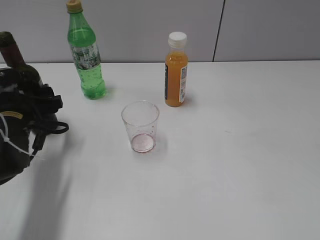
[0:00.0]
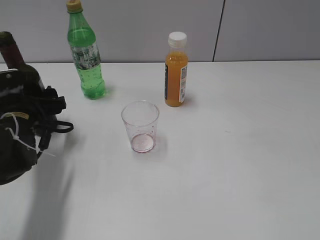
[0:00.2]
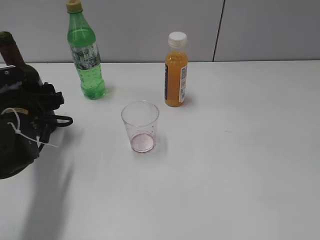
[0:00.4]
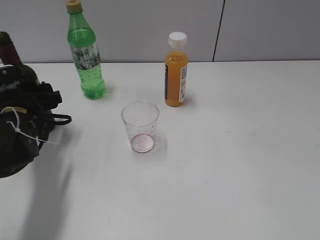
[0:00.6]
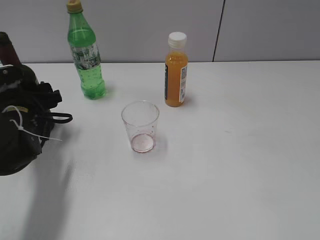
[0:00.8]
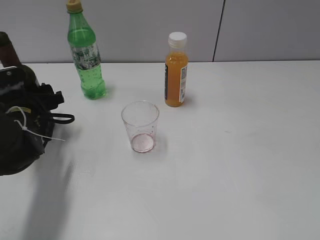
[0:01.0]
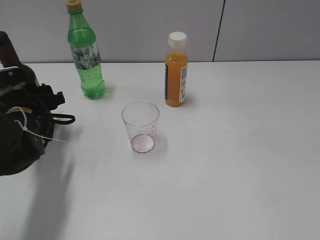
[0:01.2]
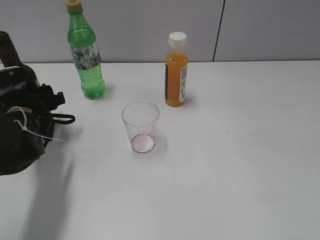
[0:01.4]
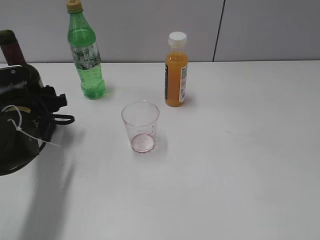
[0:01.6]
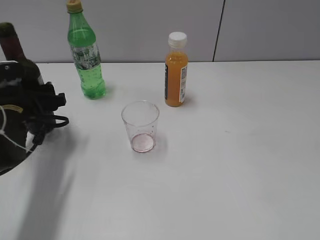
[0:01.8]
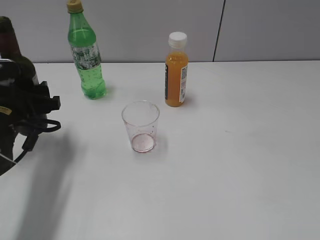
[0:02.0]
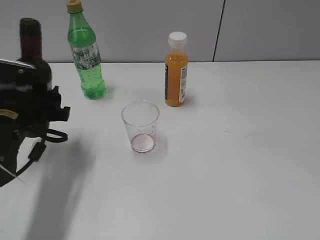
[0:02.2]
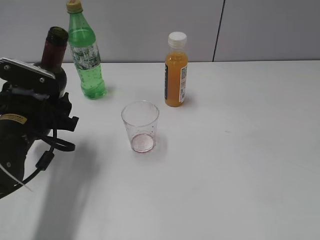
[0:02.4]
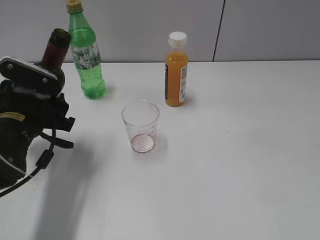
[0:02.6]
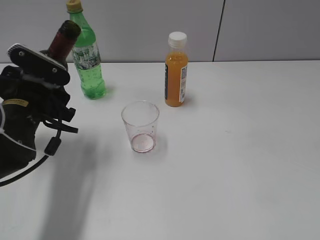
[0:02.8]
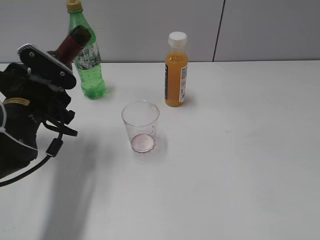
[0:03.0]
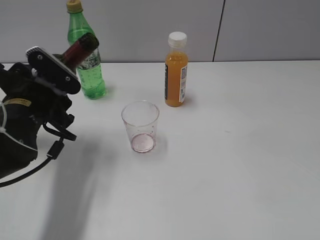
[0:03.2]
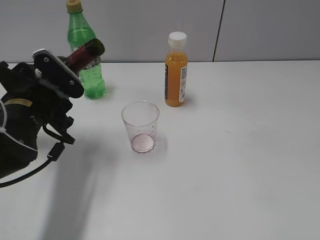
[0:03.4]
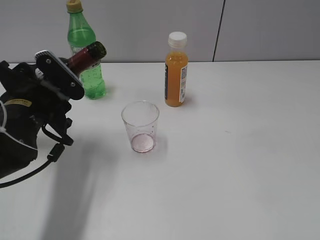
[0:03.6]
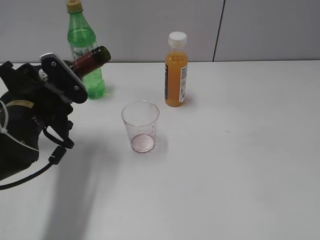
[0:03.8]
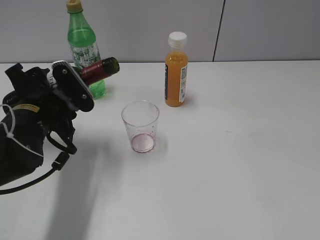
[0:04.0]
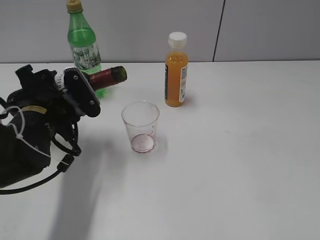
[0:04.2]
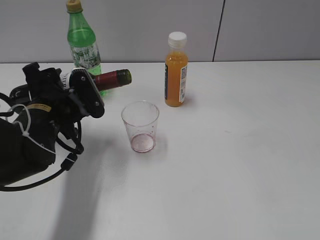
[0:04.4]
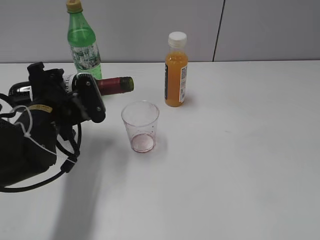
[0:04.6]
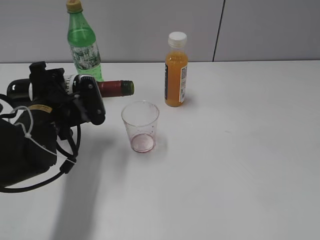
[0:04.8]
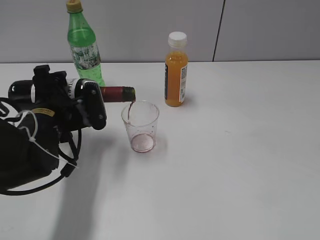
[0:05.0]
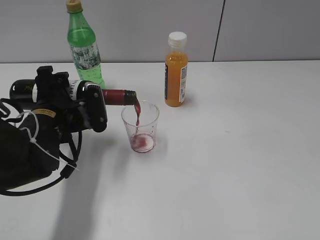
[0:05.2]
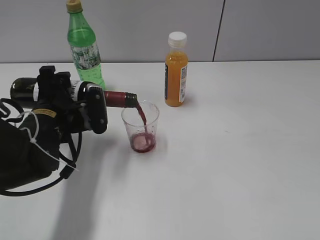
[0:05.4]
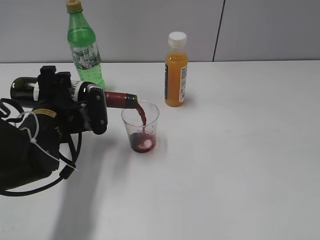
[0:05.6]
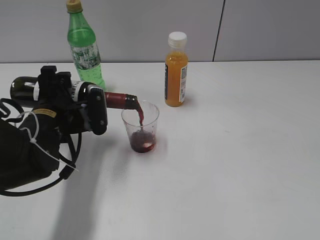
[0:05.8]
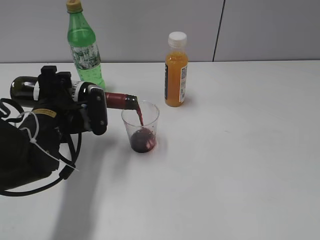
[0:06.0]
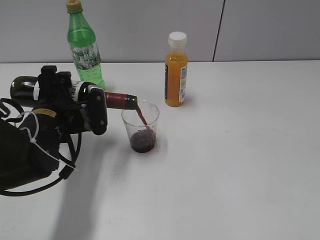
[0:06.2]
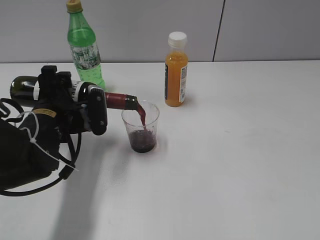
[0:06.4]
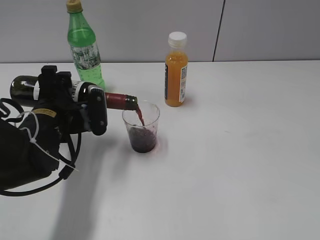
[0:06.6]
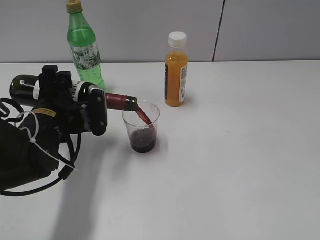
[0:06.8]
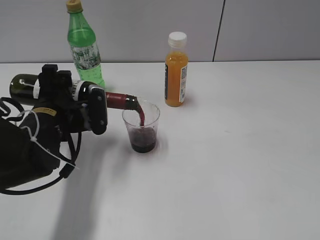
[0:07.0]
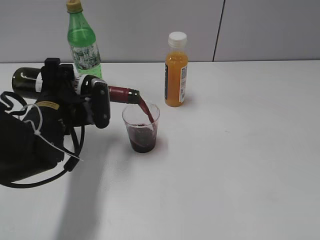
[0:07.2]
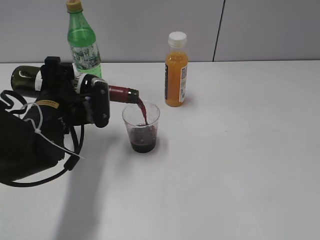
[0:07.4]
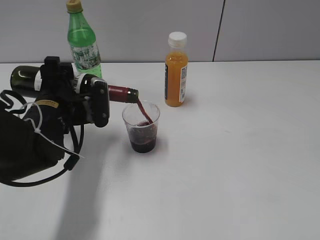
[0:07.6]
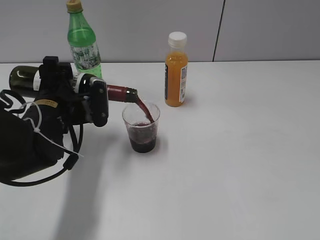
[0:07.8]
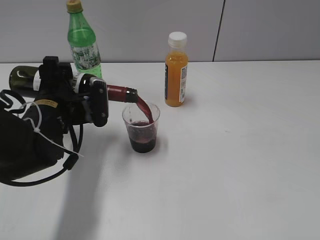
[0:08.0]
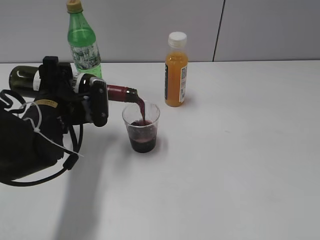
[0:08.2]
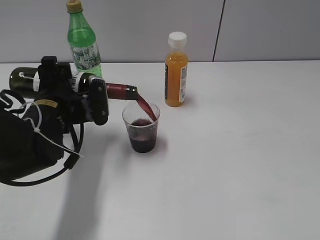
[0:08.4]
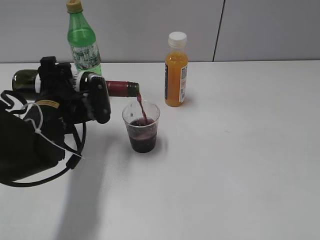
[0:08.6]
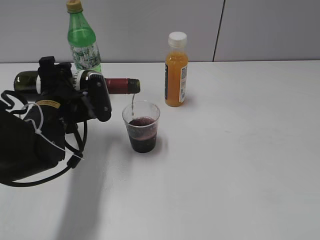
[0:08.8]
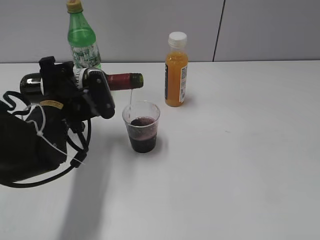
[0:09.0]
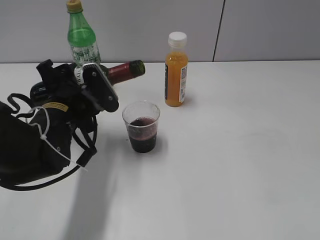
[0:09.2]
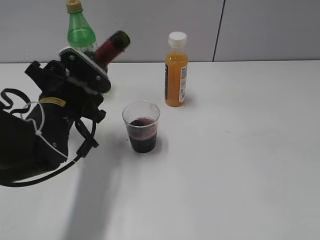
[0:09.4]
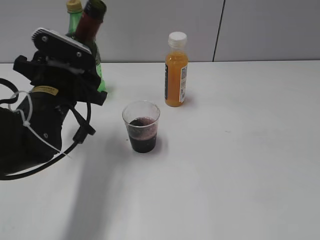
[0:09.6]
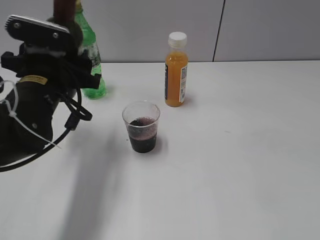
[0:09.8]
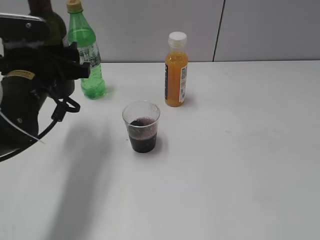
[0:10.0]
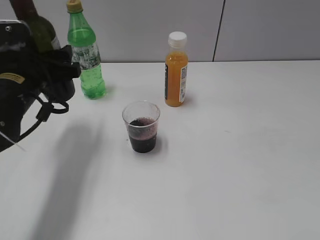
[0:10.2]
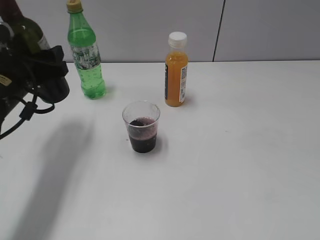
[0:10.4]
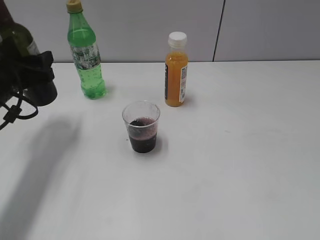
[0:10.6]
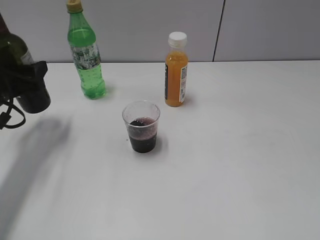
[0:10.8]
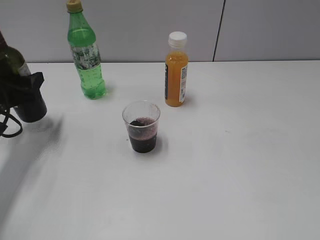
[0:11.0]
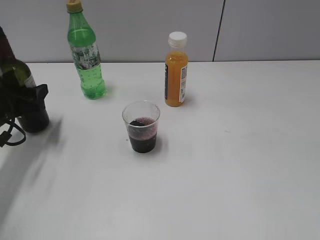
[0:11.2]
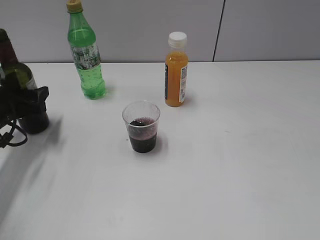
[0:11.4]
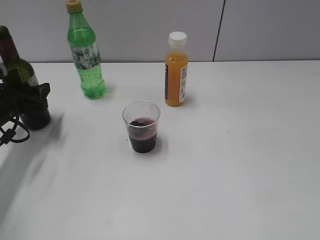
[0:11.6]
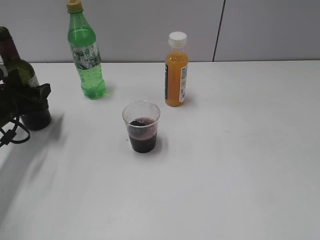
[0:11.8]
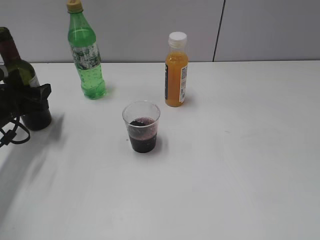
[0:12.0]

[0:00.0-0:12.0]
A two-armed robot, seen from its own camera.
Step, 0:01.6 to 0:09.0: Pour the red wine from bottle to cup with left gripper.
0:00.0 to 0:01.6: The left gripper closes up.
0:01.6 to 0:03.0: The left gripper is displaced upward by roughly 5 cm.
0:04.4 to 0:06.0: The grippers stay close to where they were, moving slightly.
0:06.0 to 0:07.6: The two grippers keep their place.
0:07.6 to 0:09.0: The grippers move only a little.
0:09.0 to 0:10.4: The left gripper goes approximately 5 cm to the left.
0:10.4 to 0:12.0: The left gripper shifts about 10 cm downward and to the left.

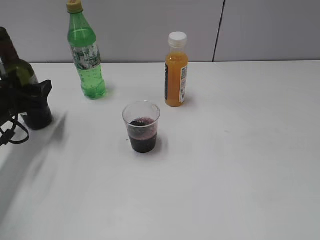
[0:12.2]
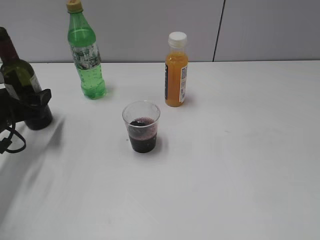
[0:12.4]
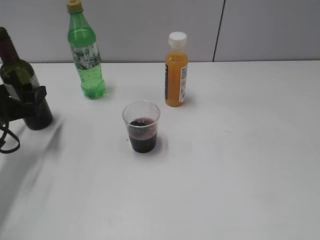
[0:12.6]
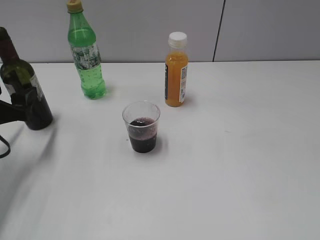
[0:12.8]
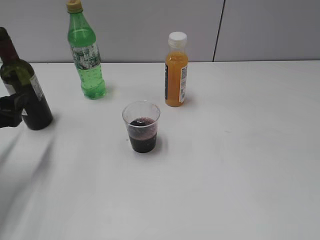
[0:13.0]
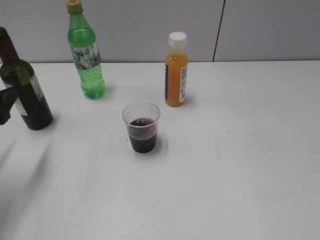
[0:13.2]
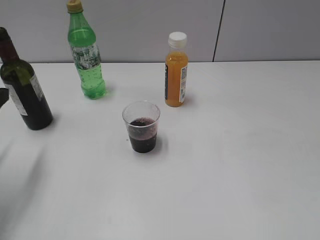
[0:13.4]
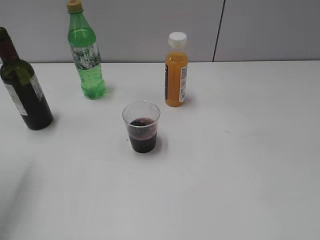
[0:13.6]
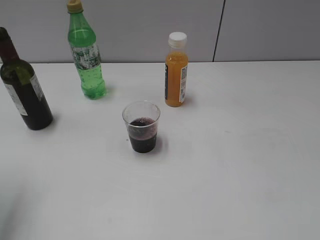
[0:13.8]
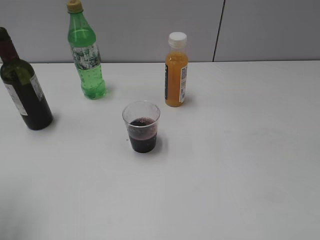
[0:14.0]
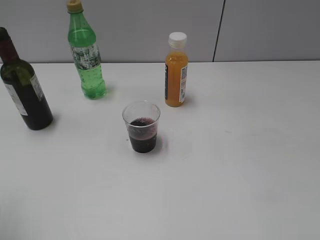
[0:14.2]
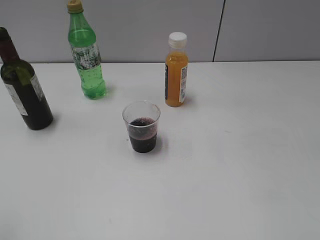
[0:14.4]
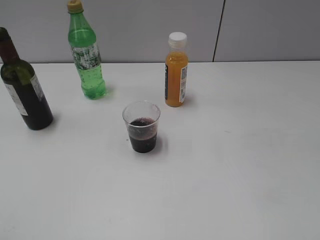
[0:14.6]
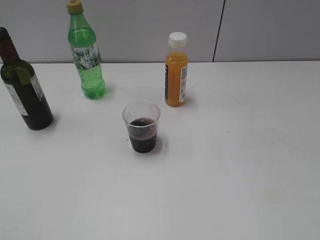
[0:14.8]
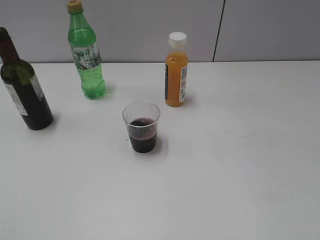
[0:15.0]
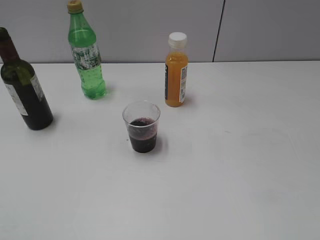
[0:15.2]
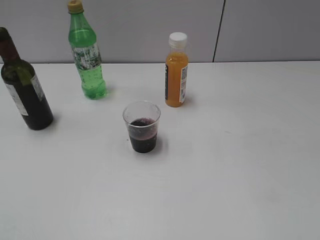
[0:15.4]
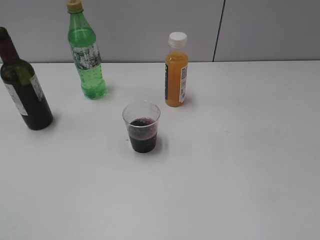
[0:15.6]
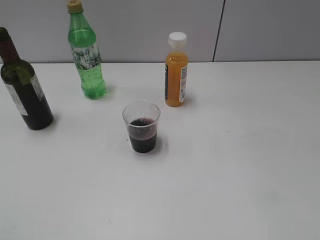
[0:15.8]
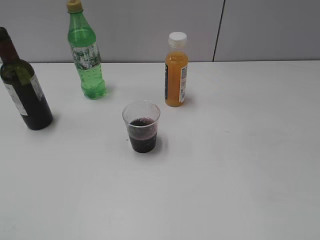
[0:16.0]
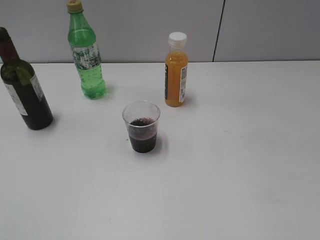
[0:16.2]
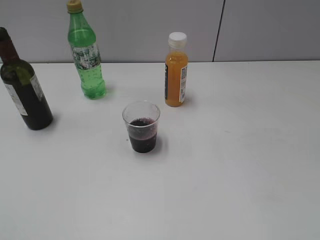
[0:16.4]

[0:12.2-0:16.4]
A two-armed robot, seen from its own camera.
0:12.2 to 0:13.6: The left gripper travels upward and backward by roughly 15 cm.
0:13.6 to 0:15.0: The left gripper goes approximately 20 cm backward.

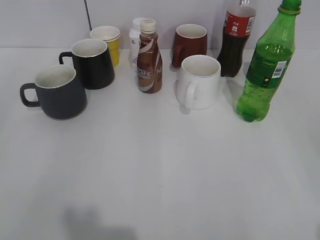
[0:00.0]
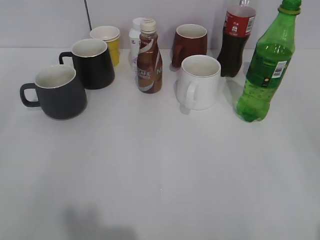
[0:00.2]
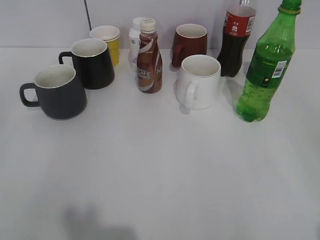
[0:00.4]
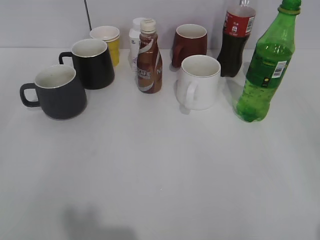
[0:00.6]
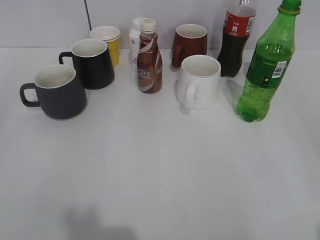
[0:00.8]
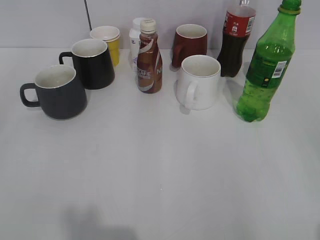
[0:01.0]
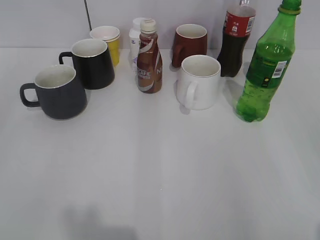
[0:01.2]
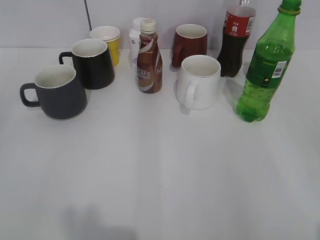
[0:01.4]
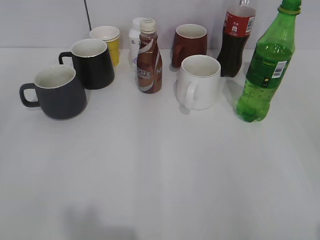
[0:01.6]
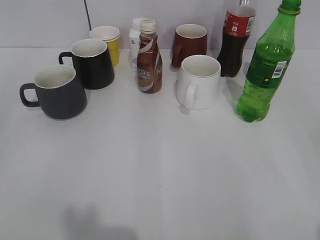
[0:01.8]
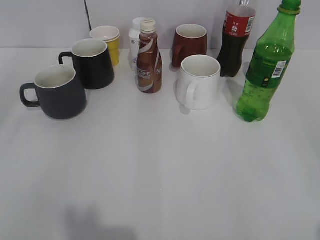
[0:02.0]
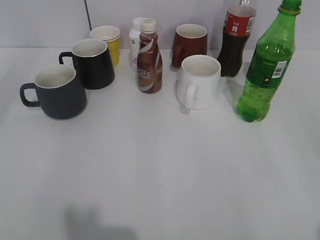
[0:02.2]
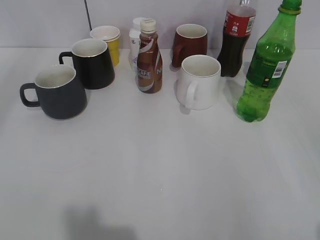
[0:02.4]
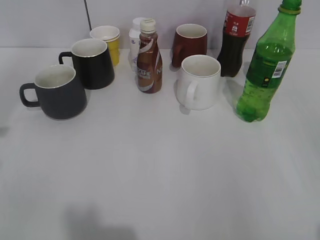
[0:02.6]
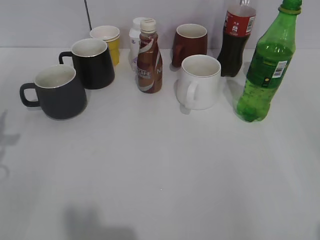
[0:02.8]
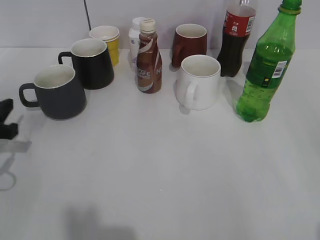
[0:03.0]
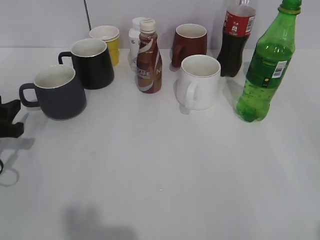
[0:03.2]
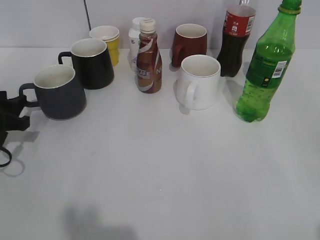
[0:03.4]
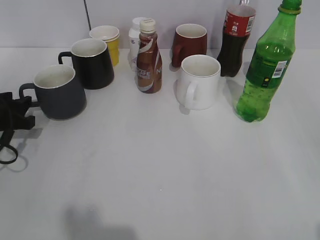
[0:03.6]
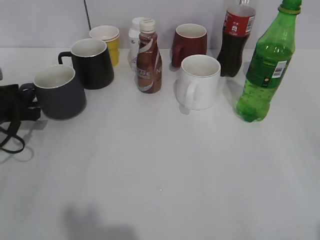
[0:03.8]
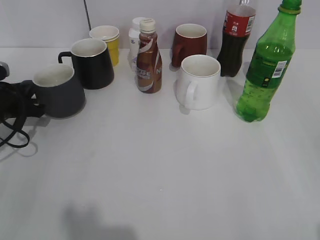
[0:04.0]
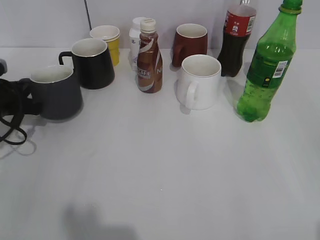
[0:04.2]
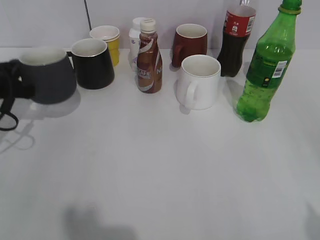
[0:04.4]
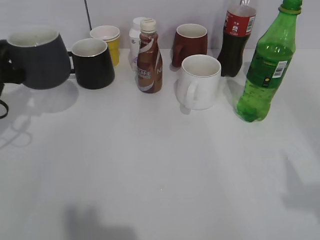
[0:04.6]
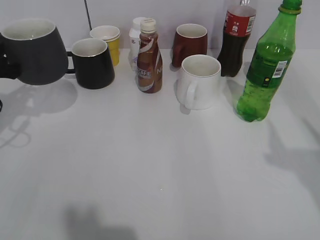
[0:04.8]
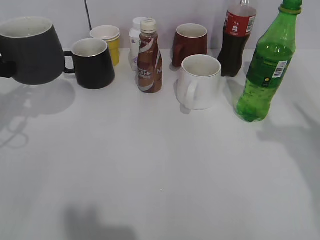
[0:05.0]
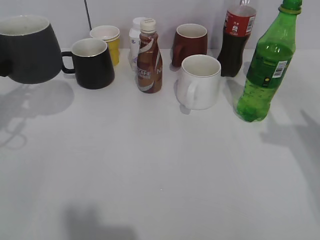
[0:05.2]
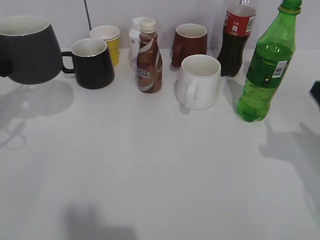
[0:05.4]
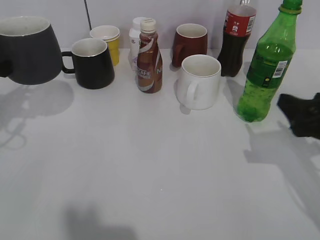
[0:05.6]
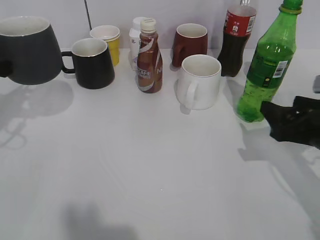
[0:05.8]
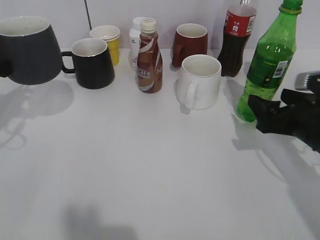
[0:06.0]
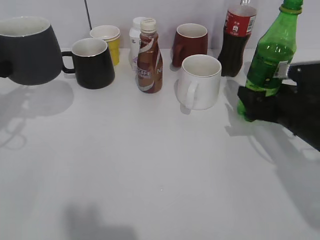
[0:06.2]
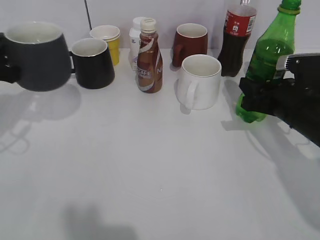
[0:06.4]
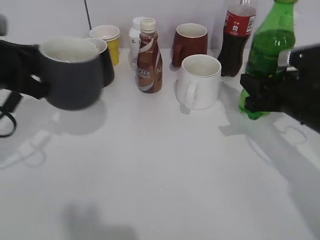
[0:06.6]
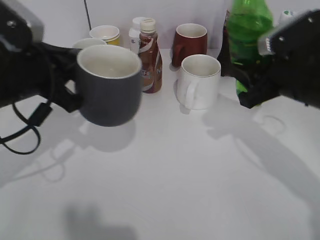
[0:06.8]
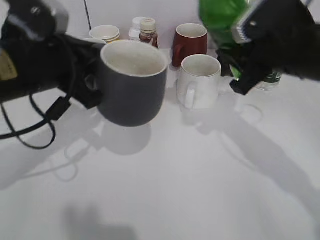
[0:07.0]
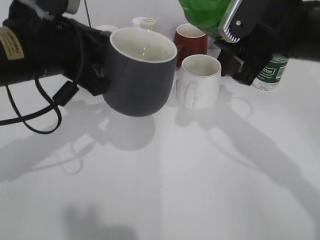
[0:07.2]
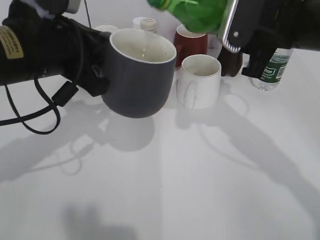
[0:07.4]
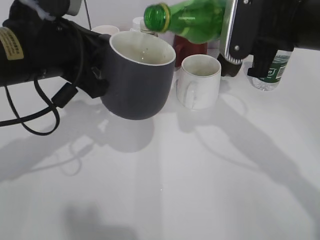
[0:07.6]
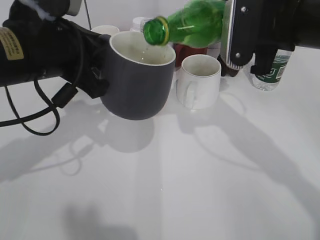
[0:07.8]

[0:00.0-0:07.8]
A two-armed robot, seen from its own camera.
Step, 0:01.8 to 0:03.8: Grasp the grey cup with left gripper.
Step, 0:04.2 to 0:05.2: Lift the grey cup with left gripper.
Step, 0:05.4 to 0:06.4: Grasp the bottle with sprite with right gripper.
0:01.6 to 0:03.2: The left gripper moves forward and downward, about 30 cm.
0:03.2 to 0:04.6: The left gripper moves upward, about 5 cm, and closes up.
0:04.6 to 0:06.2: The right gripper goes roughly 30 cm forward and downward.
0:06.2 to 0:07.8: The left gripper shifts some 15 cm to the right, while the right gripper travels upward and to the left by about 15 cm, and closes.
